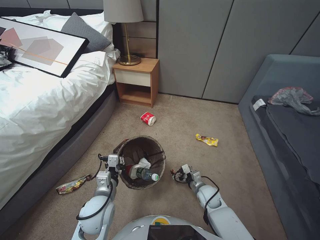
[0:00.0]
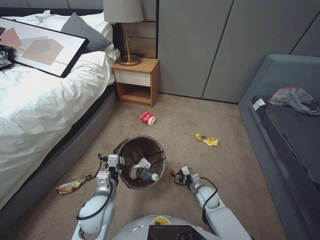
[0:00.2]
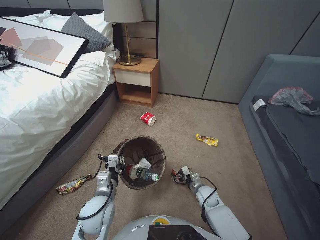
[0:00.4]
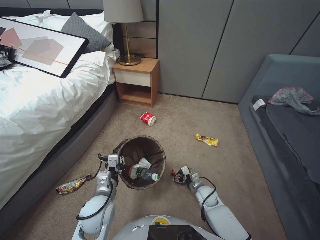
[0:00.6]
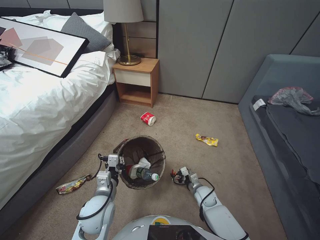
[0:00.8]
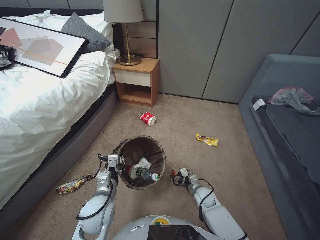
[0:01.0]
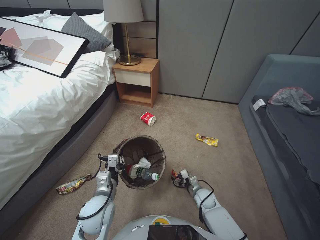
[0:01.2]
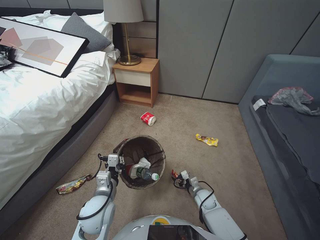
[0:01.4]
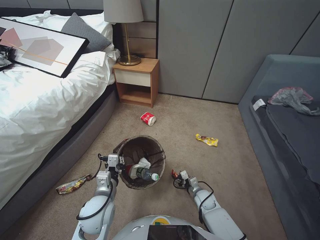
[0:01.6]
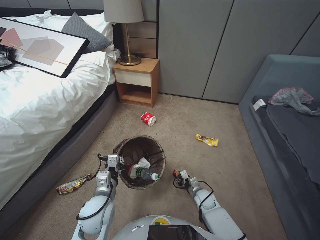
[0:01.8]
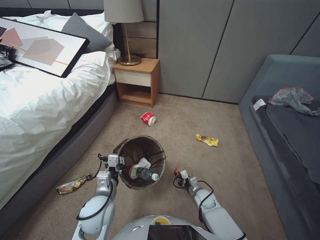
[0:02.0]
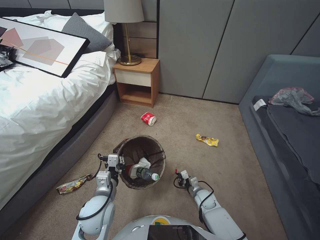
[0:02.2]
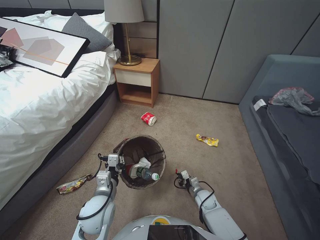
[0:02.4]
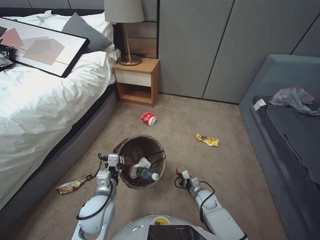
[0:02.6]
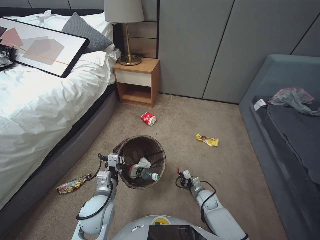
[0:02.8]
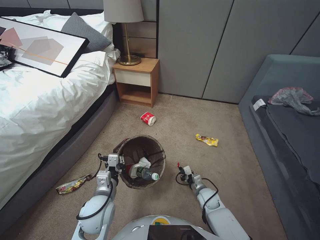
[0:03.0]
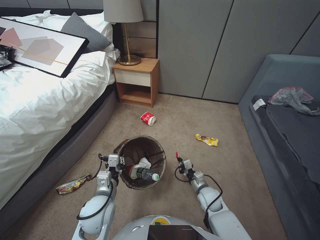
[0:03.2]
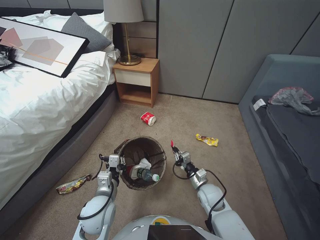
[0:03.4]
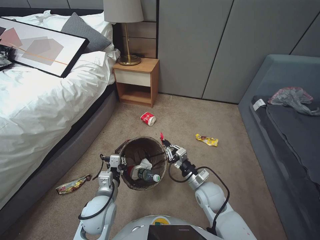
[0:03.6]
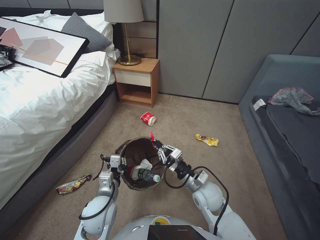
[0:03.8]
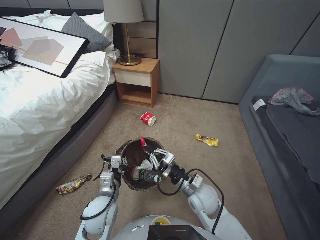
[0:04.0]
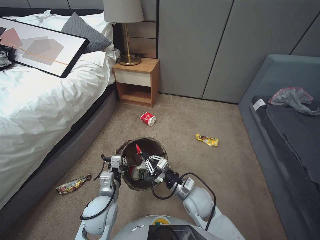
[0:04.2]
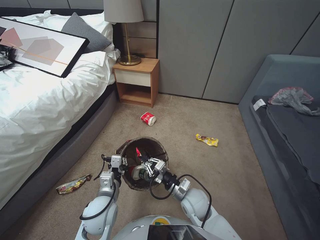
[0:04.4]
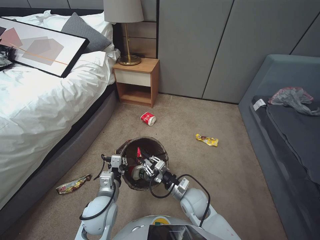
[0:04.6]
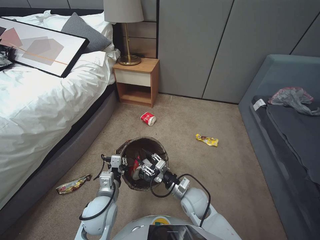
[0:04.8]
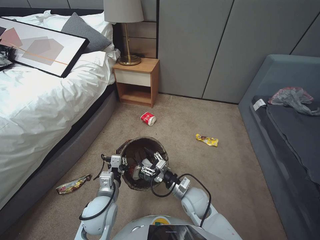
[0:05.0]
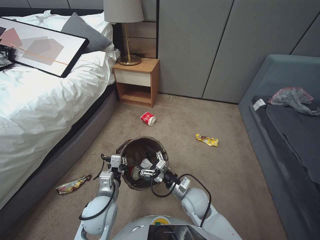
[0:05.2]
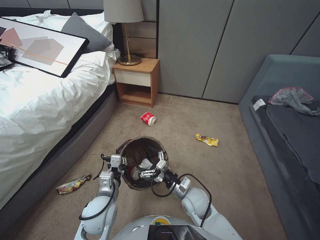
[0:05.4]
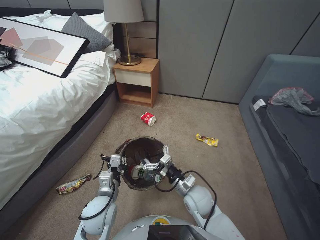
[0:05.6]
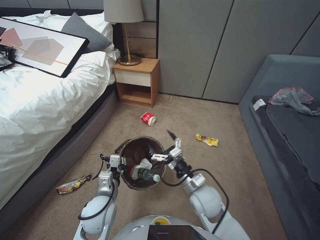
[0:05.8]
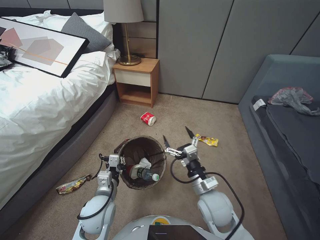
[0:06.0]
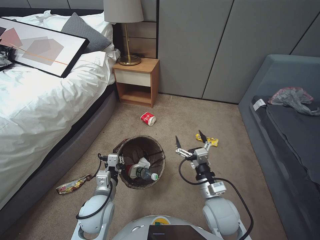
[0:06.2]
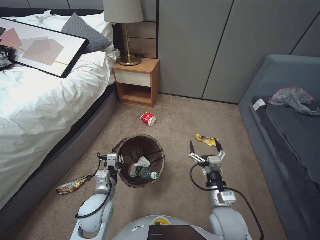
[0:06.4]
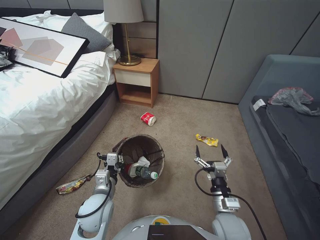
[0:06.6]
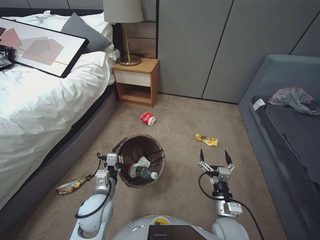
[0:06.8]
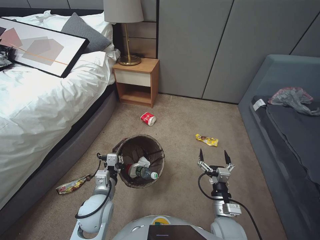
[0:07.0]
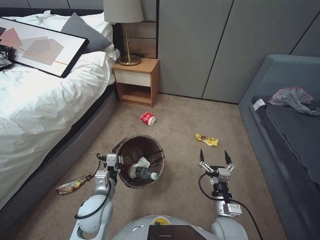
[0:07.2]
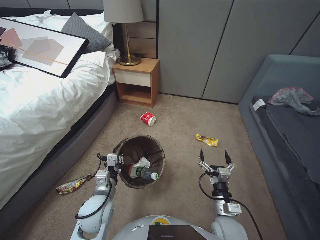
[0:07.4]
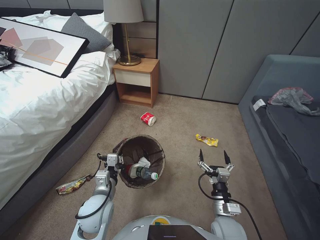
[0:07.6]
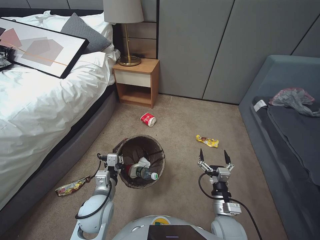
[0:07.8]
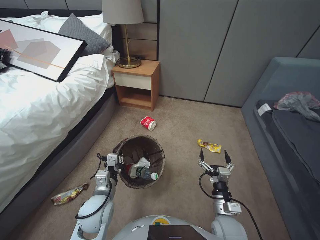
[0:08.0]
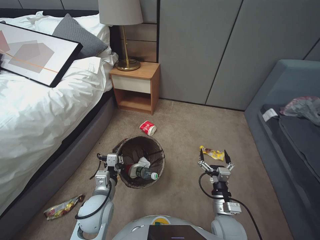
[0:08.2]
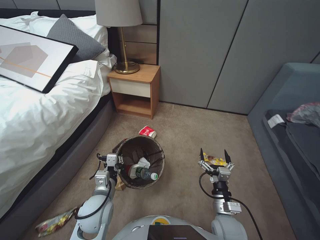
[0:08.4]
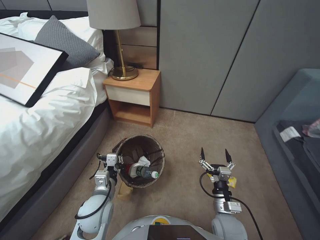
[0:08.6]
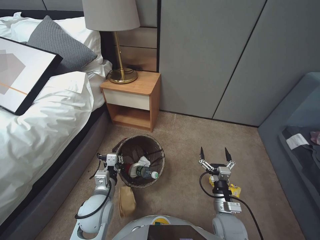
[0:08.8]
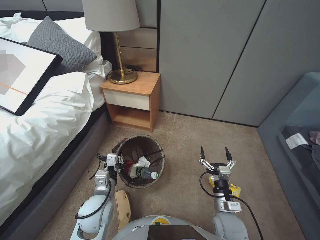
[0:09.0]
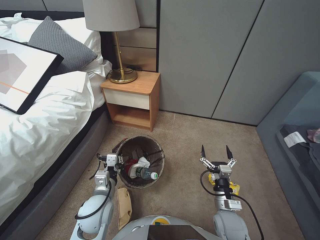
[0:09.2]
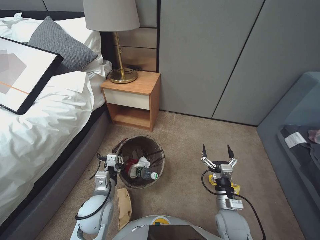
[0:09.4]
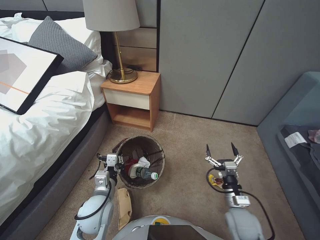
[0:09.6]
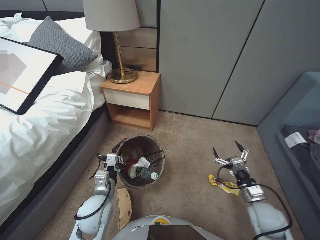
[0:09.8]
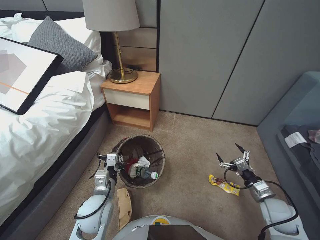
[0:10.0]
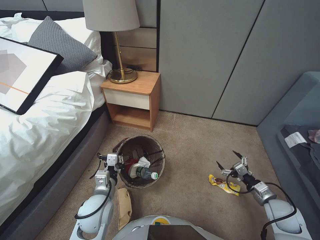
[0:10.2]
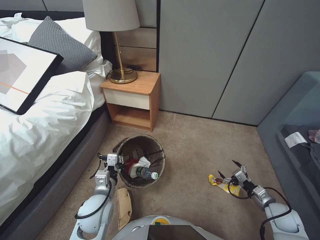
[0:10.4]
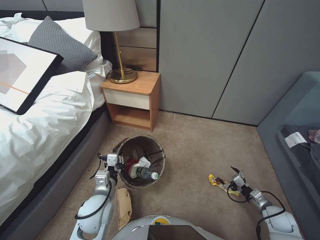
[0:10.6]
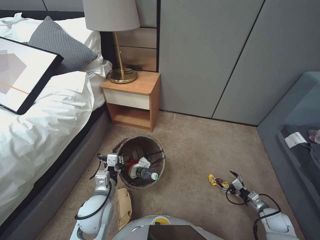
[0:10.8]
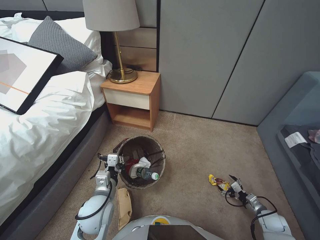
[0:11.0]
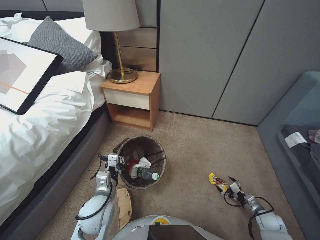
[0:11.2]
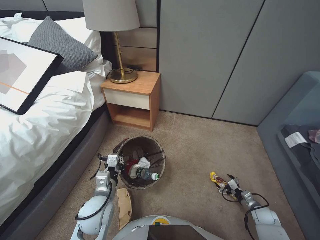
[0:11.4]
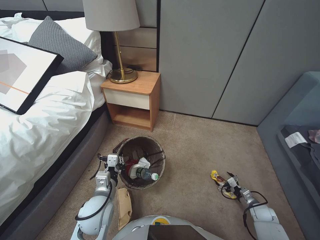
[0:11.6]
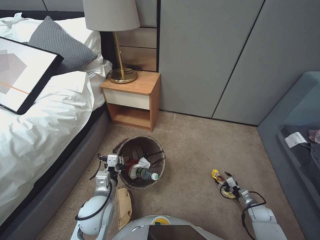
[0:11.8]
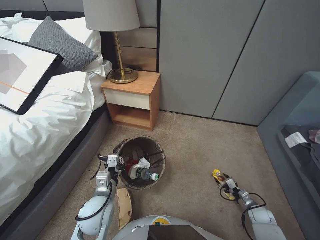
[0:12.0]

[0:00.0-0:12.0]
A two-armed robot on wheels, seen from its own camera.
Task of the whole recording: Pick up the trash bin, then pick up the garbage from the floor and place it into the trash bin.
0:00.0 to 0:01.6: The right gripper travels downward by approximately 5 cm.
0:01.6 to 0:03.0: The right gripper closes up.
0:03.0 to 0:04.4: The right gripper is displaced upward and to the left by roughly 25 cm.
0:04.4 to 0:06.0: The right gripper travels downward and back again, some 5 cm each way, and opens up.
0:06.0 to 0:07.6: The right gripper moves downward, backward and to the right, about 10 cm.
0:09.0 to 0:10.4: The right gripper is displaced to the right by roughly 20 cm.
0:10.4 to 0:12.0: The right gripper travels downward by roughly 15 cm.

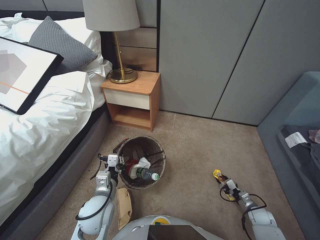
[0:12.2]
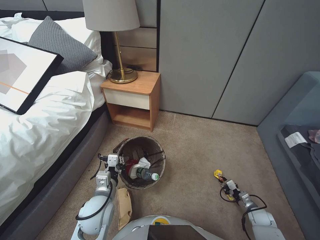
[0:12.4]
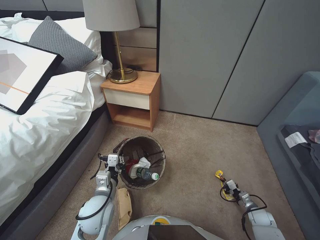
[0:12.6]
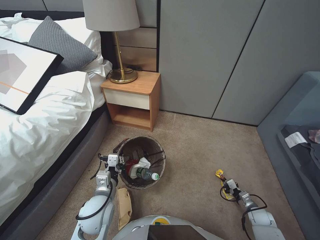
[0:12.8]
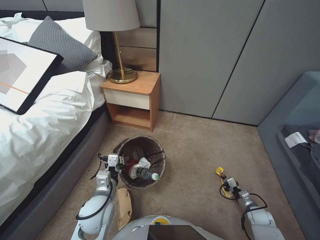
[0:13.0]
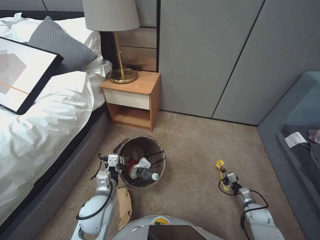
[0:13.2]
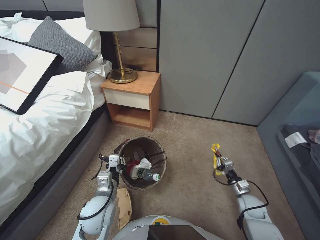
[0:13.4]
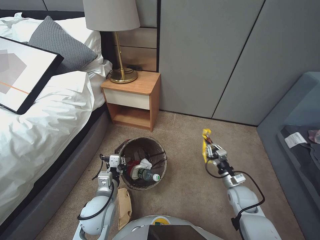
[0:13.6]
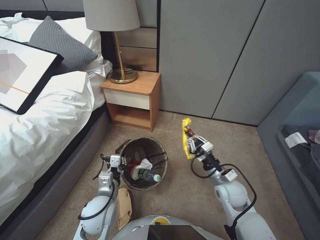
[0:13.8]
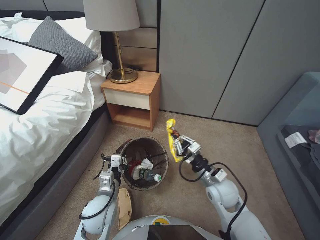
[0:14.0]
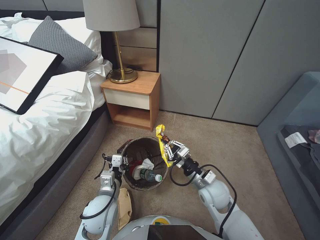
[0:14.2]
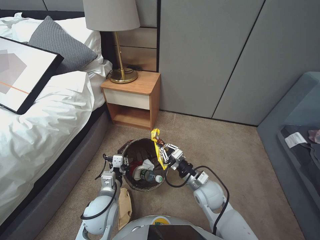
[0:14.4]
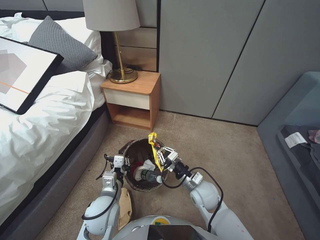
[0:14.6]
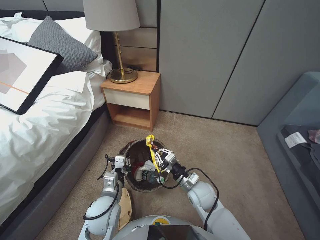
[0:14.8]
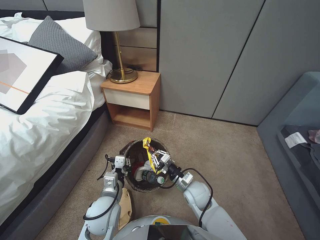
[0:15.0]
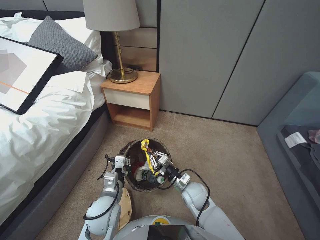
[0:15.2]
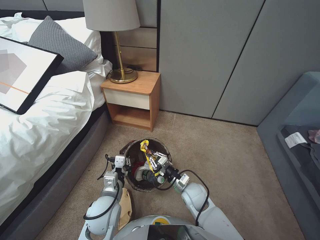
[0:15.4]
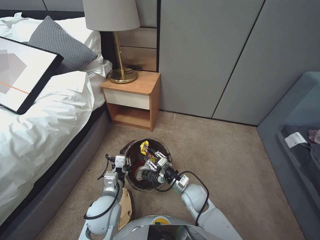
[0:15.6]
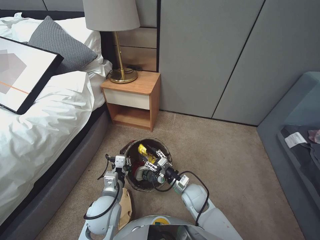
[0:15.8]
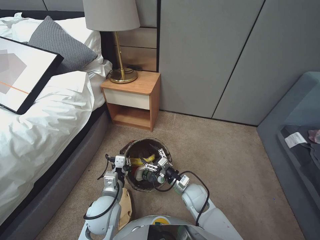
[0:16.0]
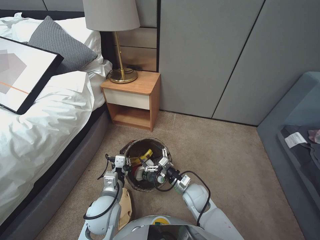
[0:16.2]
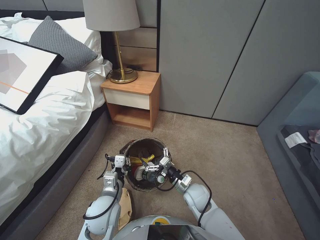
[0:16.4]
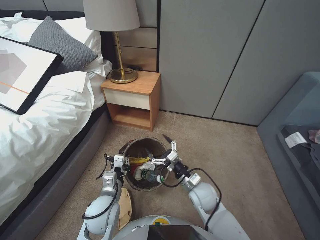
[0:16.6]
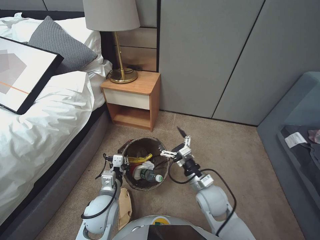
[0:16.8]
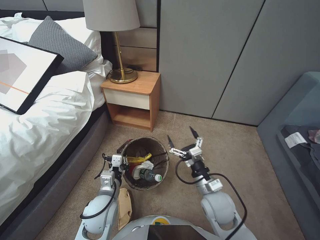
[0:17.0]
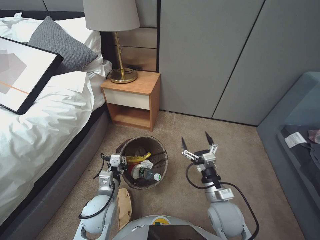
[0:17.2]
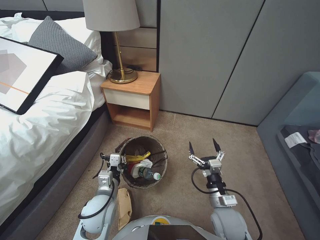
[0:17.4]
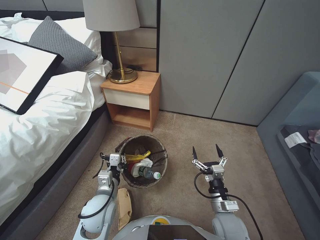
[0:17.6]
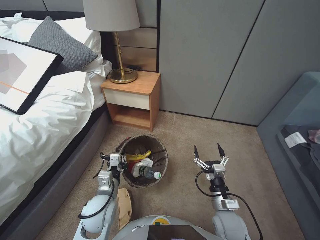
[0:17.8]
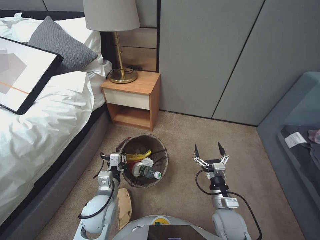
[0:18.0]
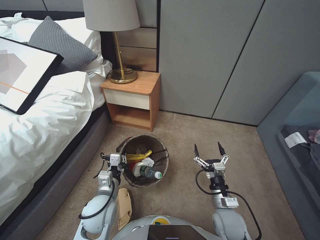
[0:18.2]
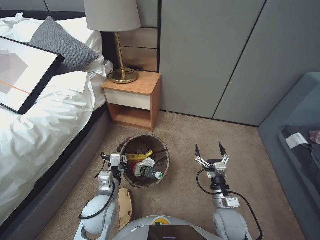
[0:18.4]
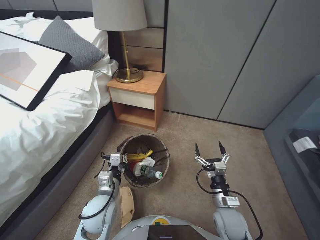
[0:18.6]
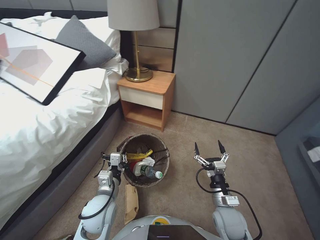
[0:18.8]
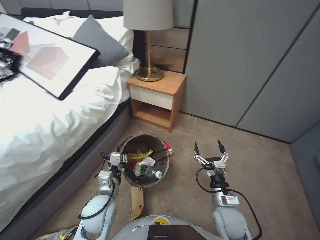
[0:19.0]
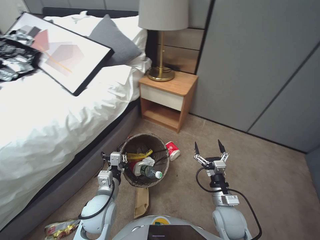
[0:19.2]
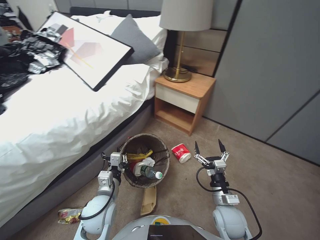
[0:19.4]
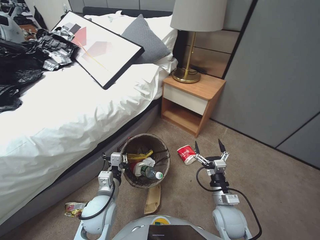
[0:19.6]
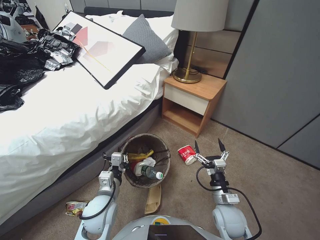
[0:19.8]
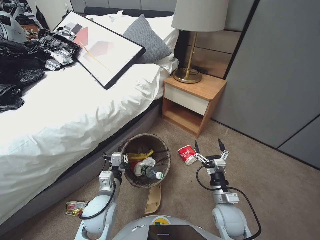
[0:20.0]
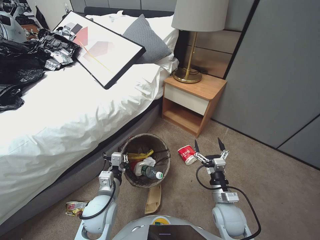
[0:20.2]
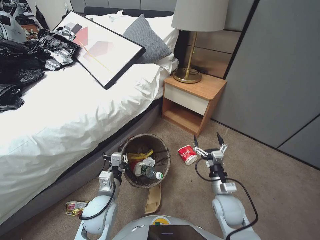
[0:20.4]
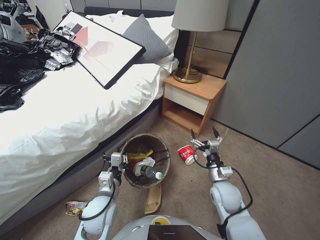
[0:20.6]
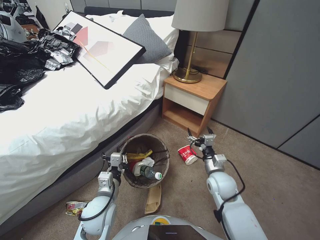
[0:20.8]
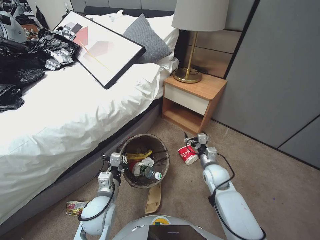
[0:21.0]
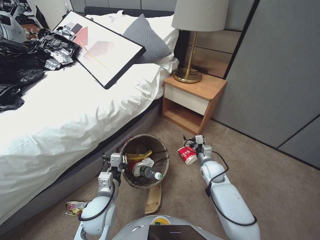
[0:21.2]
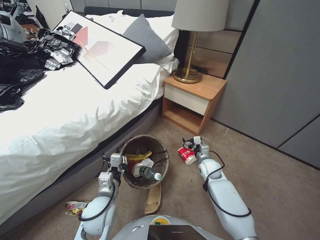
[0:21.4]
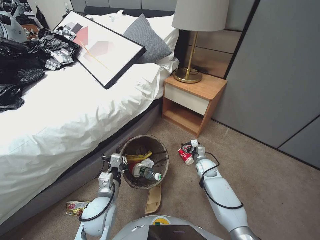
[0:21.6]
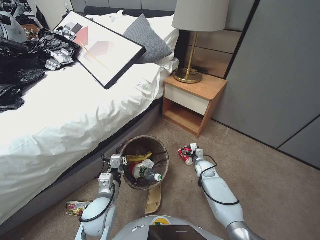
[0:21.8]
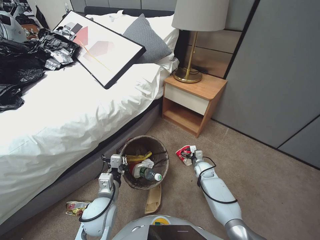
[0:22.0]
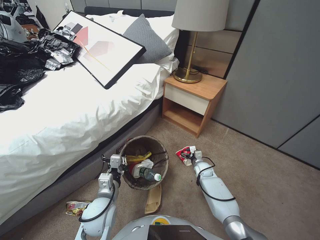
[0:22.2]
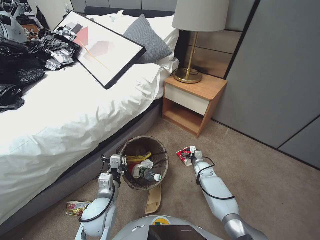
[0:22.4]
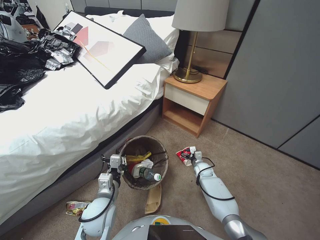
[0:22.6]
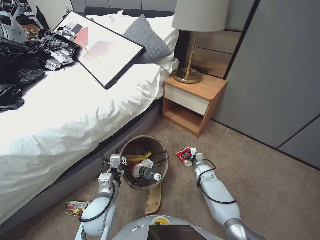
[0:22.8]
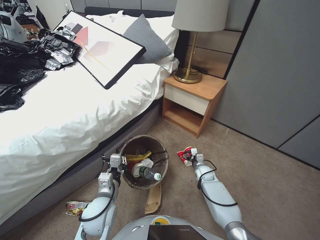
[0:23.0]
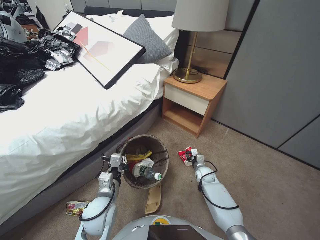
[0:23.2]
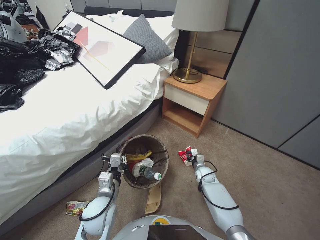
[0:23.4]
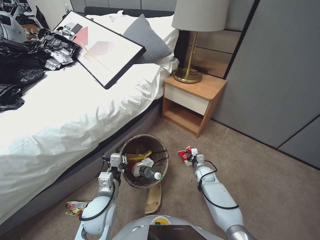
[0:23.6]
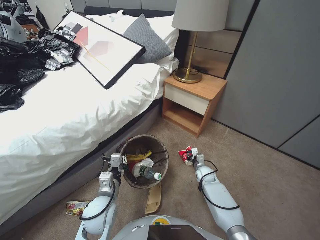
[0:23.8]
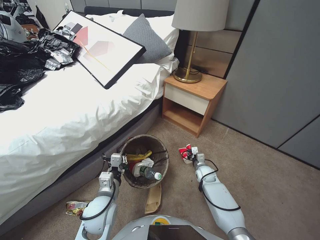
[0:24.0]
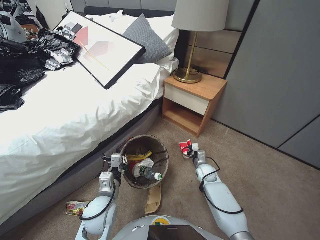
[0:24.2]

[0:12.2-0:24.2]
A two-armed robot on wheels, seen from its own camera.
Task of the whole recording: Pick up the trash bin, then pick up the garbage from the floor and place it into the trash bin.
0:12.2 to 0:13.8: The right gripper goes approximately 30 cm upward and to the left, and closes up.
0:13.8 to 0:15.2: The right gripper shifts some 15 cm to the left.
0:15.2 to 0:16.6: The right gripper opens up.
0:16.6 to 0:18.2: The right gripper travels backward and to the right by about 10 cm.
0:19.8 to 0:21.2: The right gripper goes some 15 cm forward.
0:21.2 to 0:22.6: The right gripper shifts about 20 cm downward and forward.
0:22.6 to 0:24.2: The right gripper closes.
